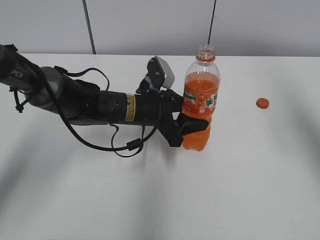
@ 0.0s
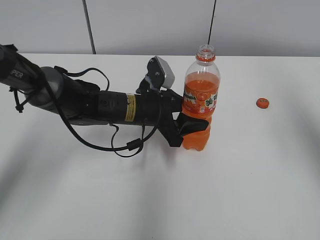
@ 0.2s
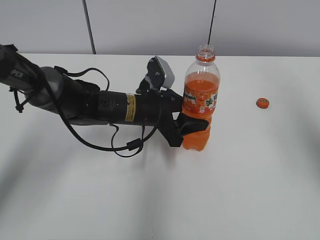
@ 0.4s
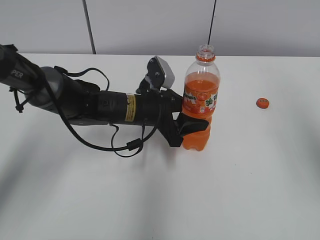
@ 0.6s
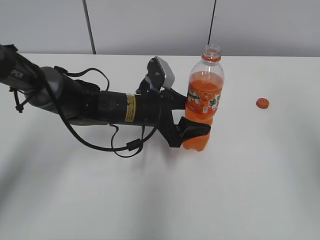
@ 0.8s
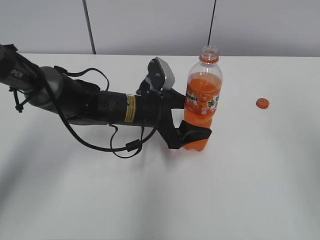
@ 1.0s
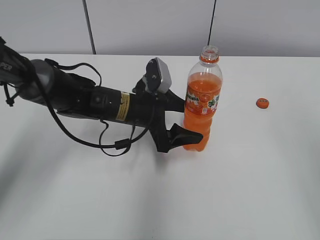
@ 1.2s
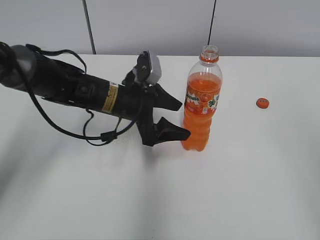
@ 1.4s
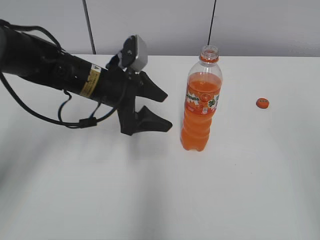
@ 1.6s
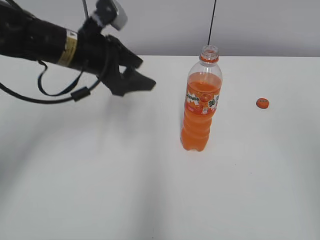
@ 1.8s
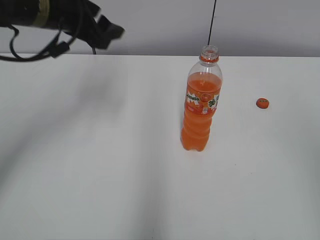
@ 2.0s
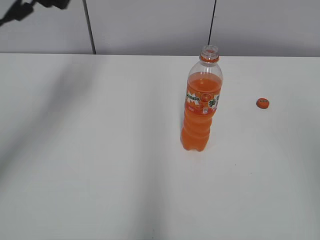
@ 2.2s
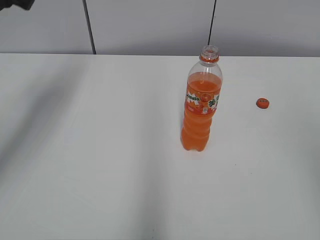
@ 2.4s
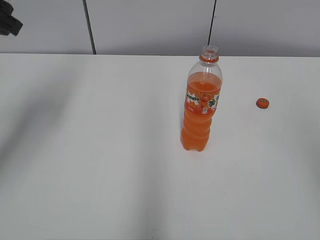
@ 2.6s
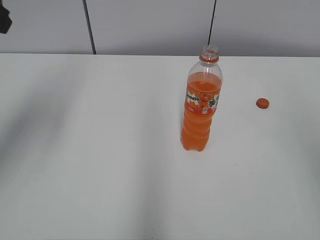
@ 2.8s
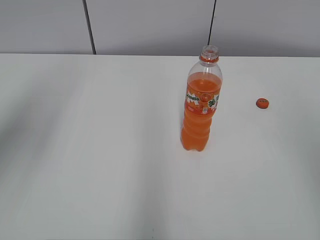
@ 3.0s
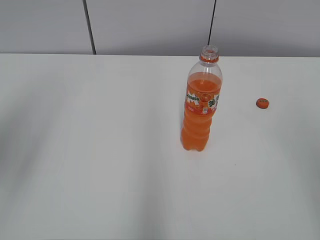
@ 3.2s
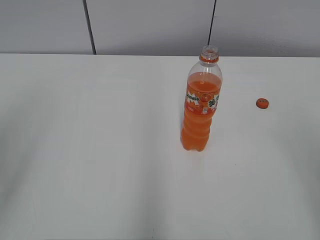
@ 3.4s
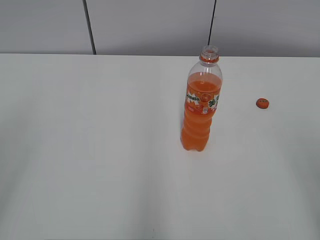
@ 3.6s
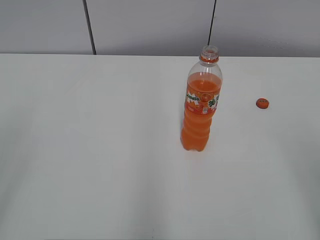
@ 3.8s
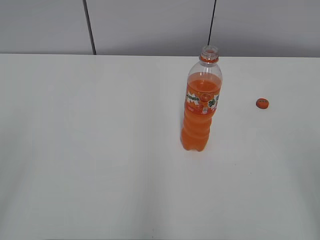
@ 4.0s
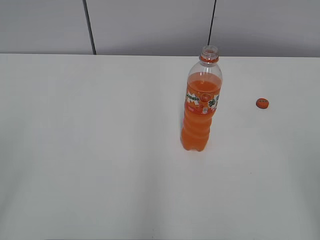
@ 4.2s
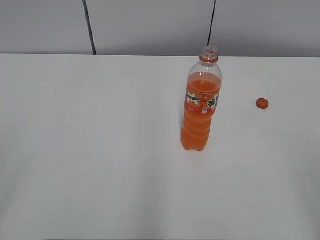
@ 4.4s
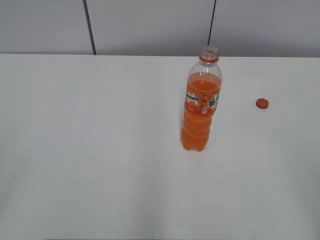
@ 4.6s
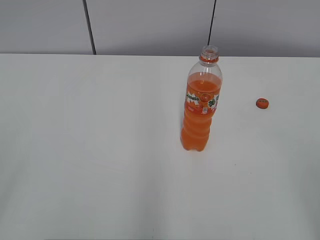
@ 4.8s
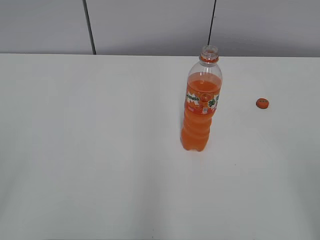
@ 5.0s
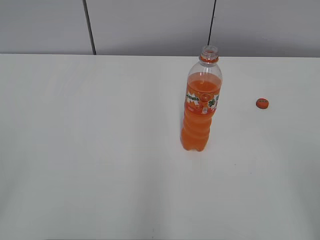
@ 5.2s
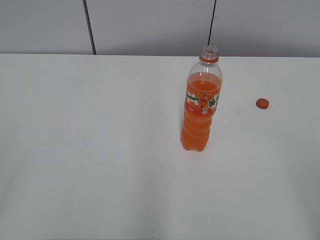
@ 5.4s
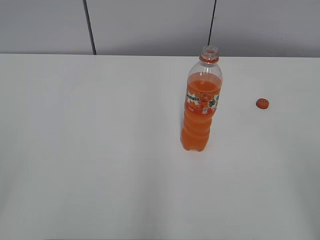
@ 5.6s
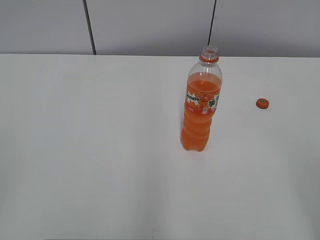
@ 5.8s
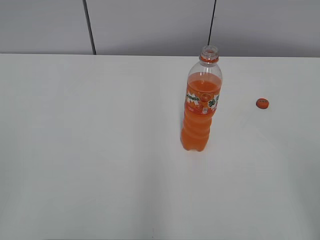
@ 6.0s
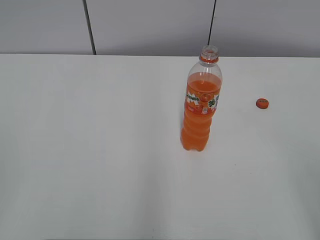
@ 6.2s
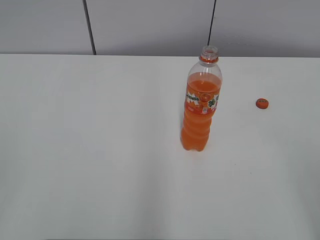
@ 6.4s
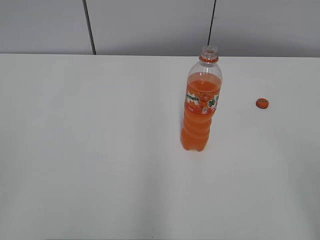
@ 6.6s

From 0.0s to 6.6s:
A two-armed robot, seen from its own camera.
From 0.0s to 1.6s: The left gripper moves to the left and upward, some 10 cm, and opens up, while the right gripper travels backward by some 20 cm.
From 1.6s to 3.2s: The left gripper heads upward, backward and to the left, covering roughly 35 cm, and closes its fingers.

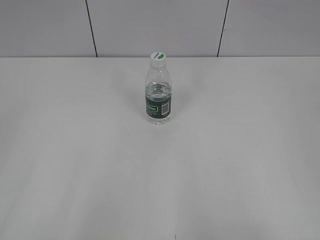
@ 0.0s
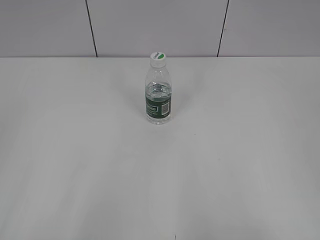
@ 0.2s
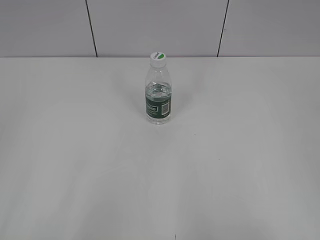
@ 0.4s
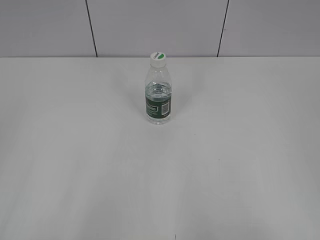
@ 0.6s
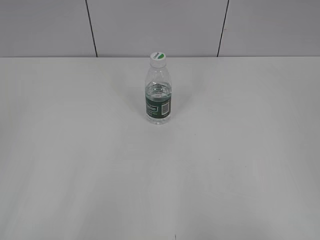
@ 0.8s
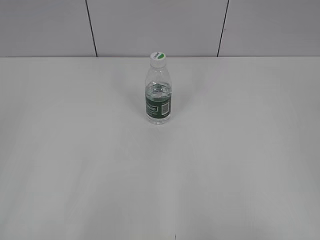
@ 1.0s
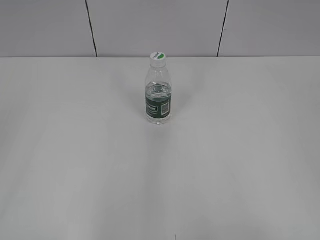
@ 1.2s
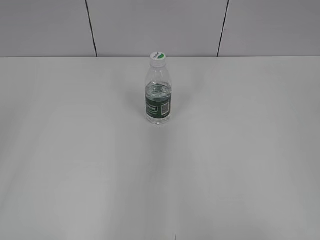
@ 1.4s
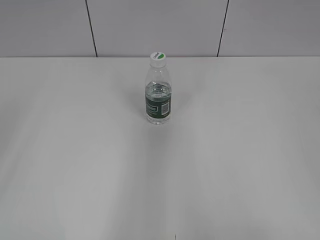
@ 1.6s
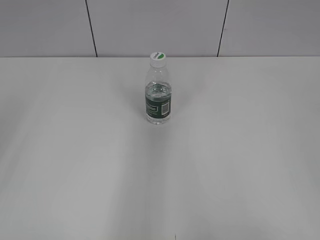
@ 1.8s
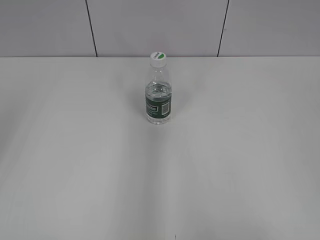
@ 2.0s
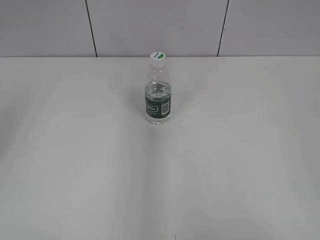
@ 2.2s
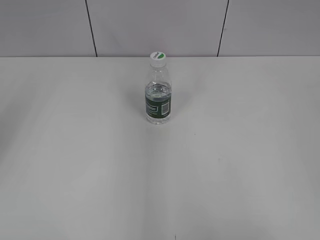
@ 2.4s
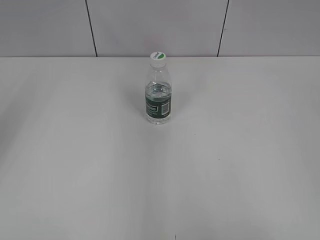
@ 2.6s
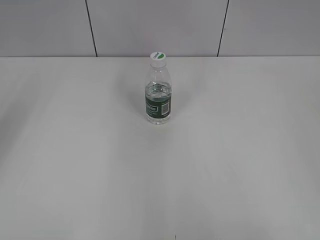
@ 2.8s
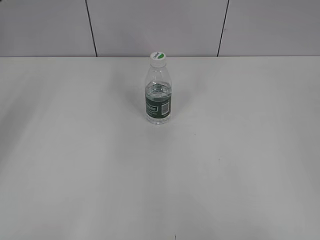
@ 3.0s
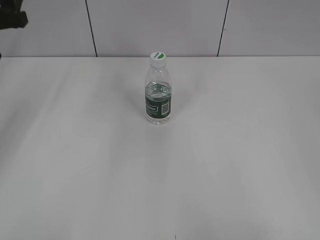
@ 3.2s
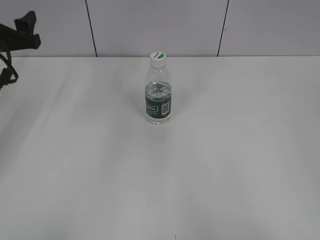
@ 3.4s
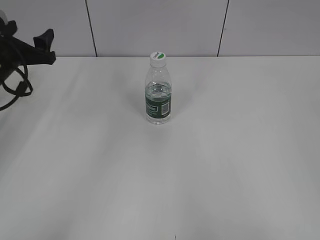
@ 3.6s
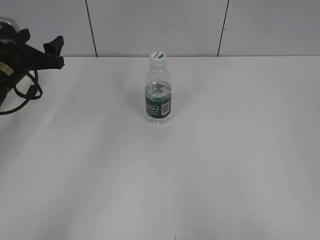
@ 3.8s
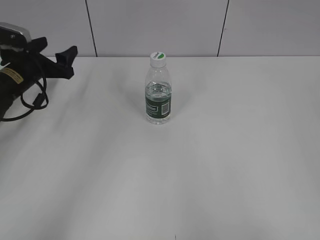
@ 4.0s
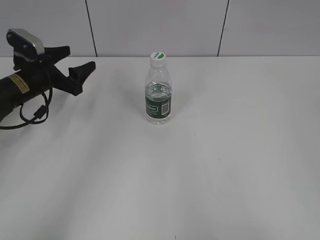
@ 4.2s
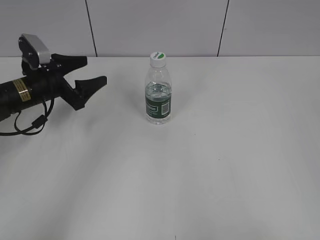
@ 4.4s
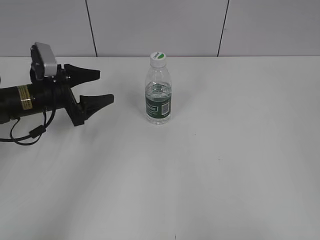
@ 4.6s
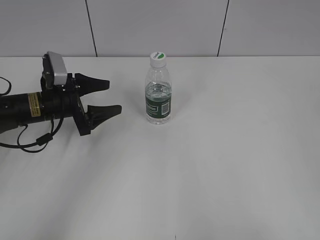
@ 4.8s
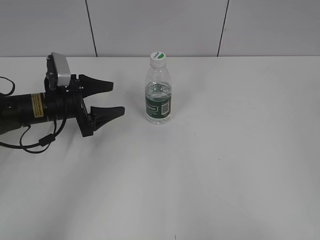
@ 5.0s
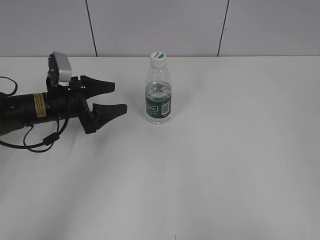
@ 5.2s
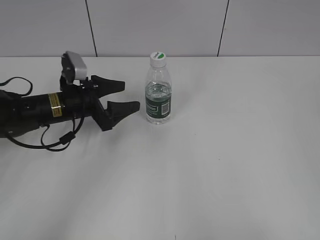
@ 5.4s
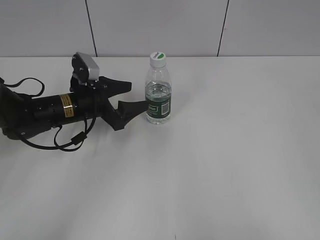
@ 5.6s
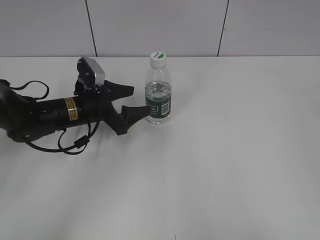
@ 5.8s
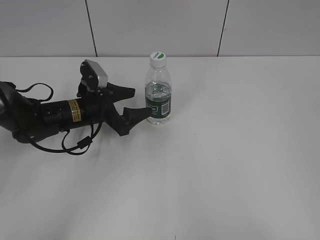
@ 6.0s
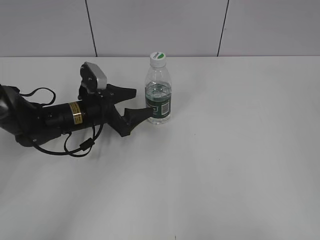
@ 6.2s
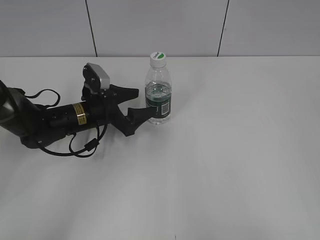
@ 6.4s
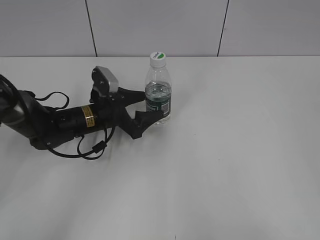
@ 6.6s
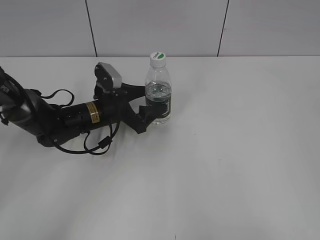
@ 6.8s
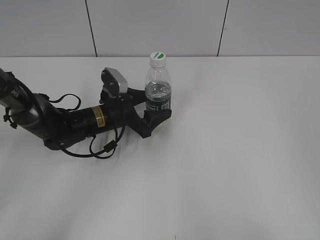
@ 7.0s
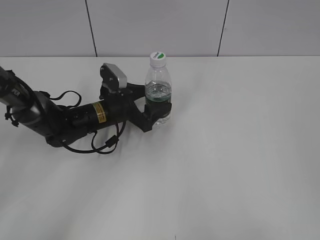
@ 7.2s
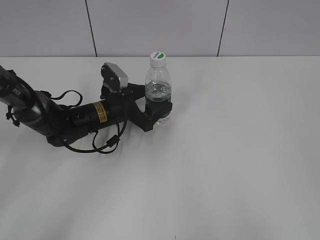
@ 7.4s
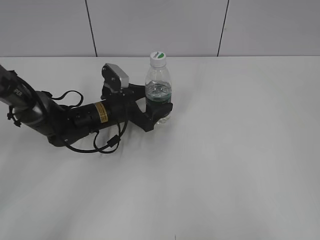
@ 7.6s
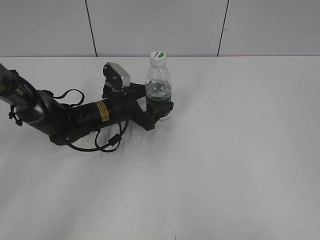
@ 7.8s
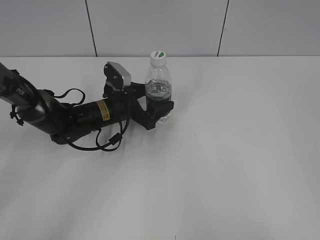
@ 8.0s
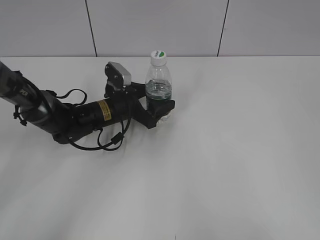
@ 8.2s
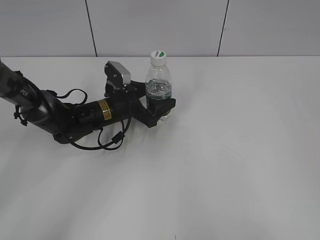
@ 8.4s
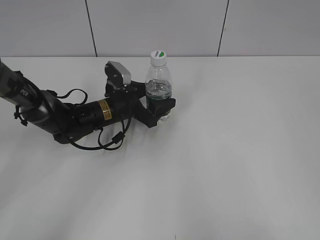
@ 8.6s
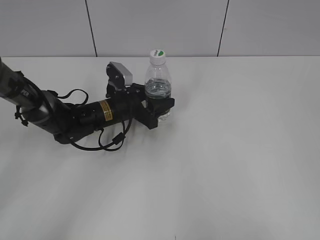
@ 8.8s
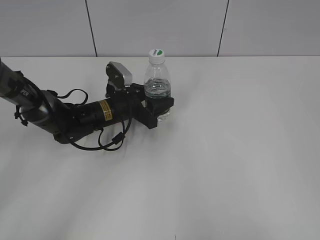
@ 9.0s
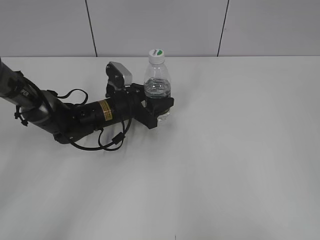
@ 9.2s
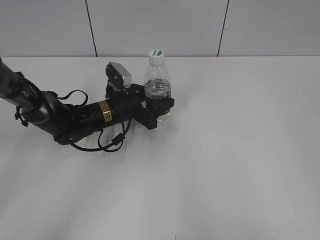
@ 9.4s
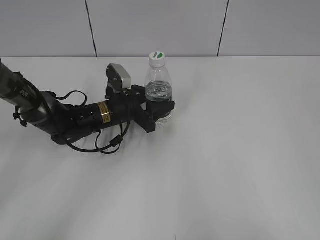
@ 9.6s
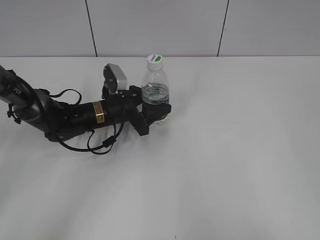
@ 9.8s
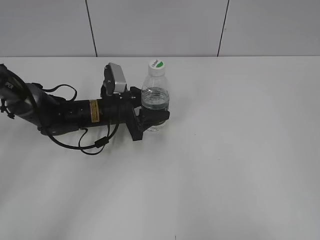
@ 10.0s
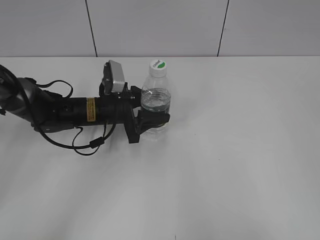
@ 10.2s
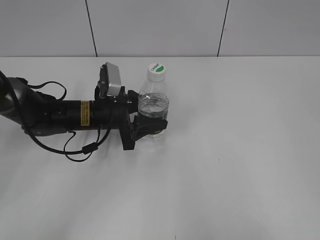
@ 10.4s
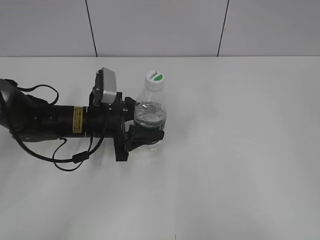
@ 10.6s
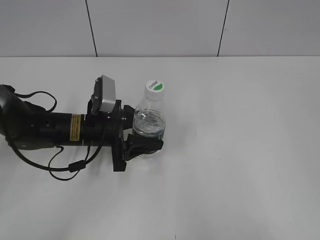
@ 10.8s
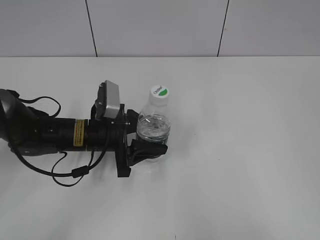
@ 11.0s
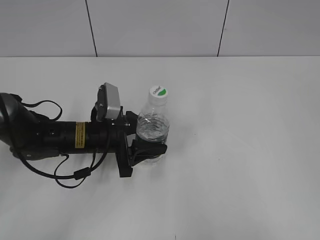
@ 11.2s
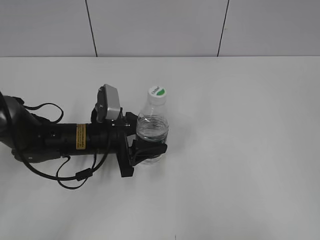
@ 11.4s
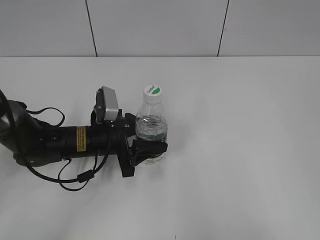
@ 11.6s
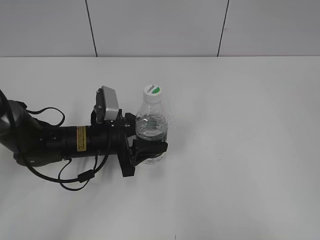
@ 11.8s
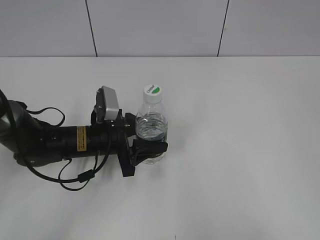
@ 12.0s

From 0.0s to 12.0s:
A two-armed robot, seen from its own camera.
Step, from 0.0s to 8.4s: Grasp the bottle and move it to the center of the table with the left gripper.
From 3.0s to 4.4s: The left gripper travels downward by approximately 20 cm.
From 4.4s to 6.0s: The left gripper heads to the right, covering some 10 cm.
From 6.0s to 7.6s: The left gripper changes place by roughly 5 cm.
From 7.6s to 9.0s: The left gripper closes.
From 9.0s to 10.4s: The left gripper changes place by some 5 cm.
From 10.4s to 12.0s: The left gripper is displaced backward by approximately 5 cm.

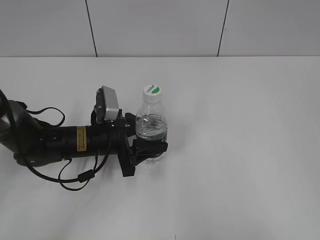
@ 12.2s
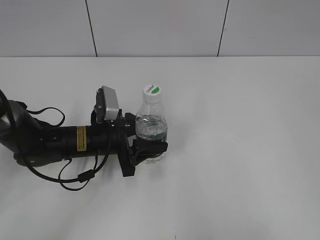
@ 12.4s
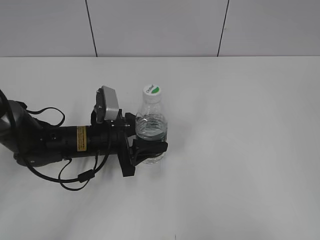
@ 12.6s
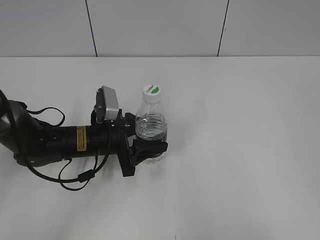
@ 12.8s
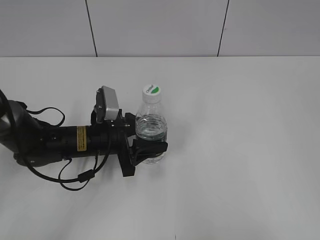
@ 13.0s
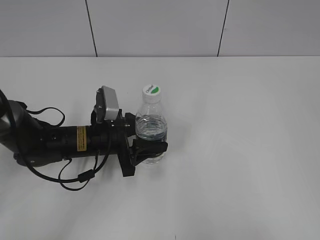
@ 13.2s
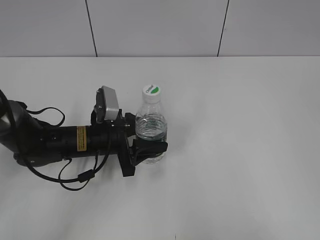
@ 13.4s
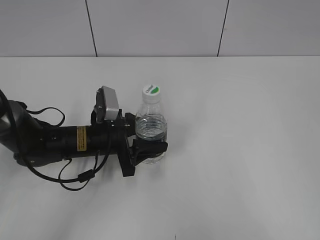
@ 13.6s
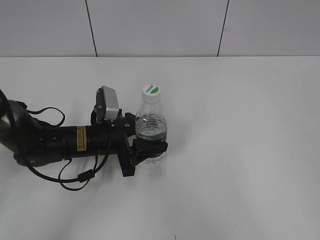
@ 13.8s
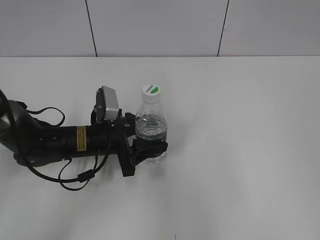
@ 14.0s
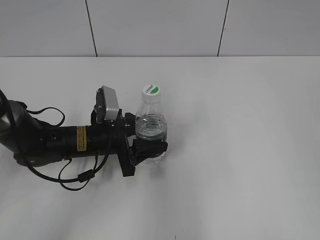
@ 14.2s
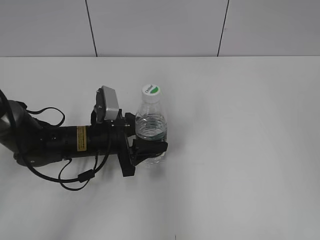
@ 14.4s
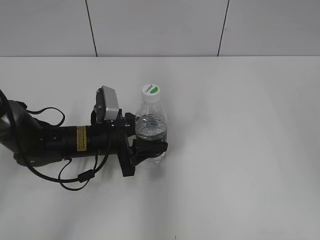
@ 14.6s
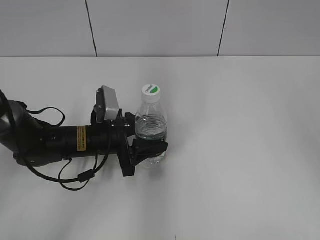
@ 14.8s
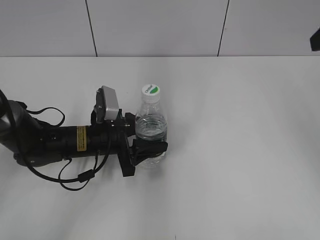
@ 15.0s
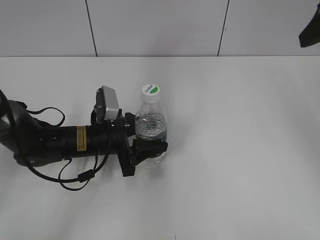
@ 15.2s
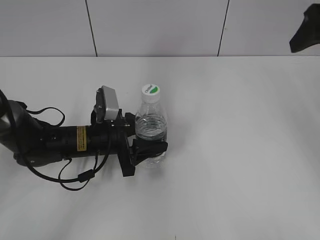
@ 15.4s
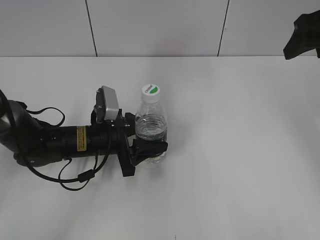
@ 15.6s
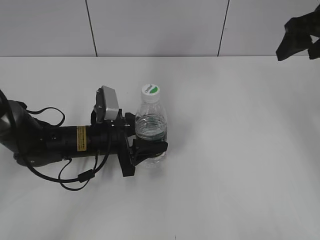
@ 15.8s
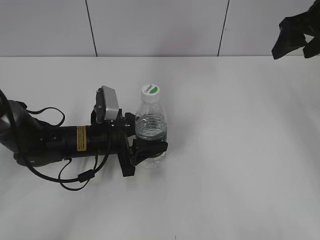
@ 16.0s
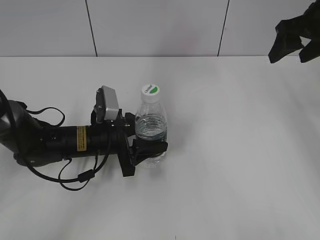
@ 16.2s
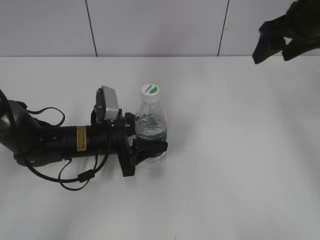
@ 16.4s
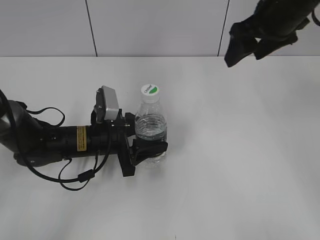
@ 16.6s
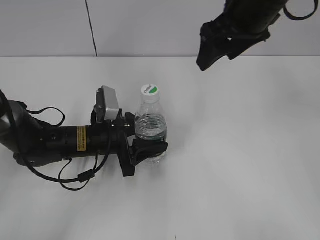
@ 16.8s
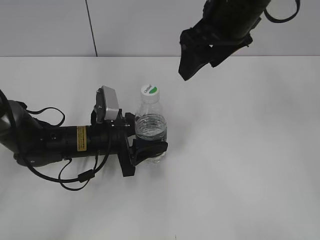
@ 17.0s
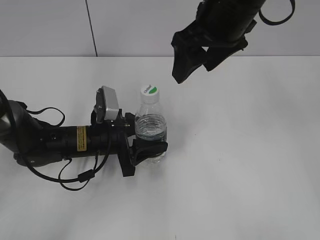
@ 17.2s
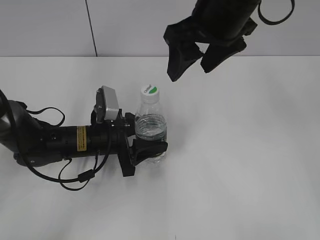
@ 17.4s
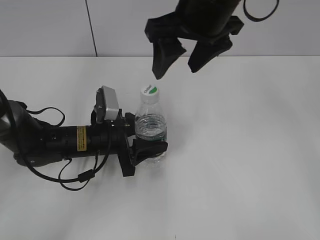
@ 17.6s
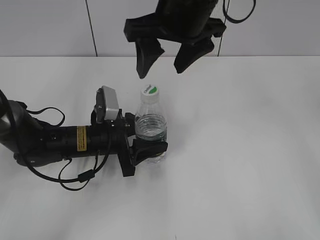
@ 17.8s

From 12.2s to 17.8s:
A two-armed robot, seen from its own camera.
From 12.2s to 13.6s: Both grippers stay about where they are.
From 13.6s to 15.0s: The right gripper is displaced forward by about 30 cm.
From 15.0s to 16.4s: The right gripper travels forward and downward by about 15 cm.
From 16.4s to 17.8s: The right gripper moves to the left, about 20 cm.
